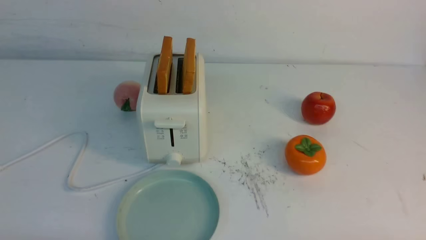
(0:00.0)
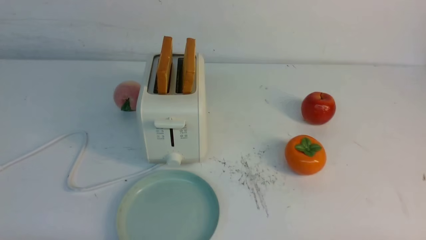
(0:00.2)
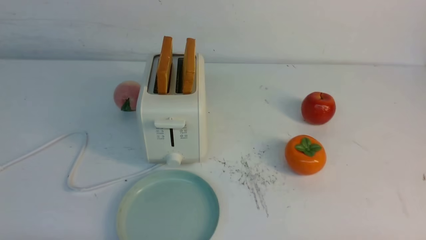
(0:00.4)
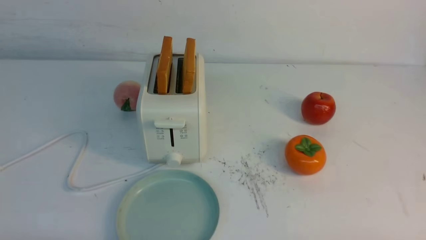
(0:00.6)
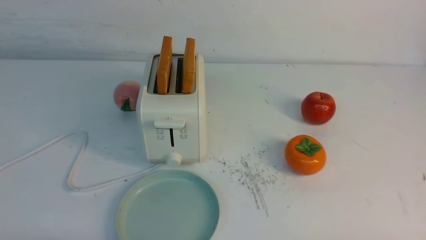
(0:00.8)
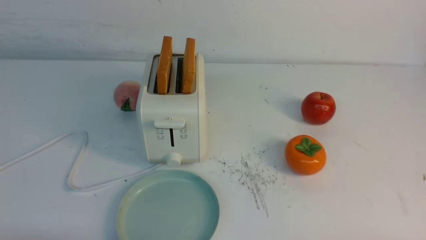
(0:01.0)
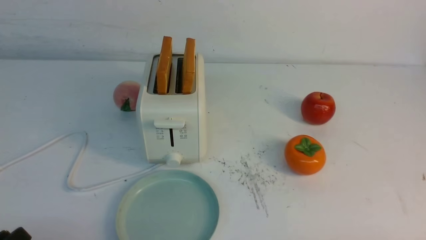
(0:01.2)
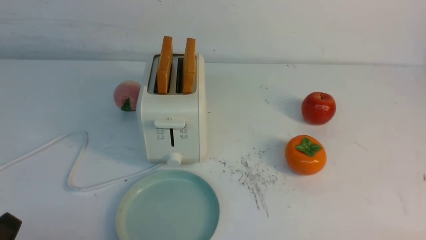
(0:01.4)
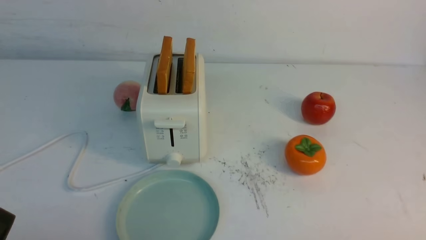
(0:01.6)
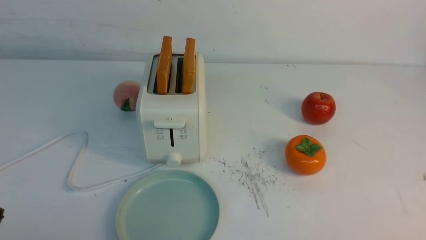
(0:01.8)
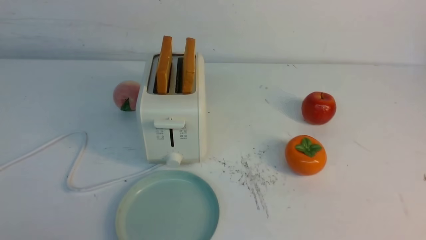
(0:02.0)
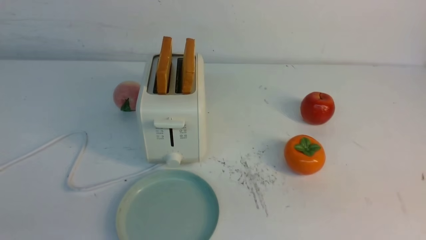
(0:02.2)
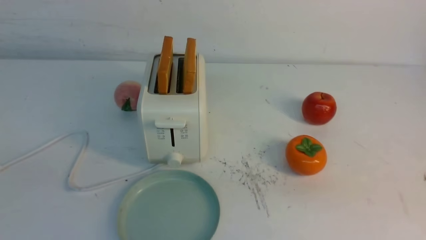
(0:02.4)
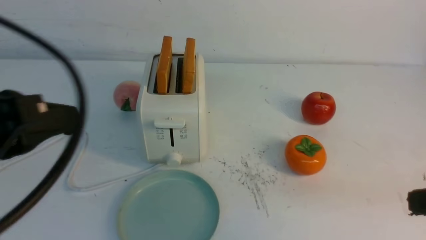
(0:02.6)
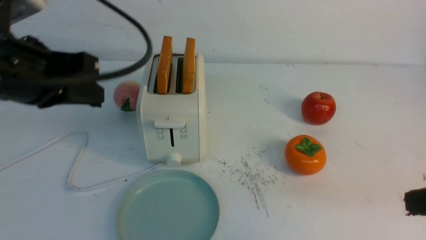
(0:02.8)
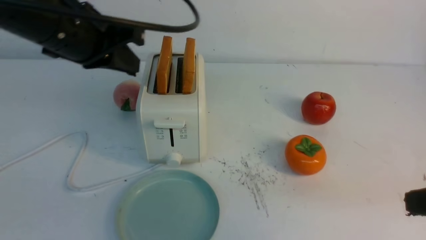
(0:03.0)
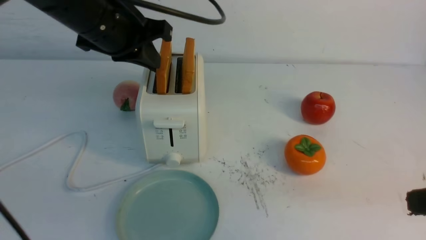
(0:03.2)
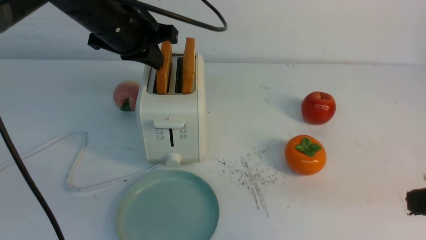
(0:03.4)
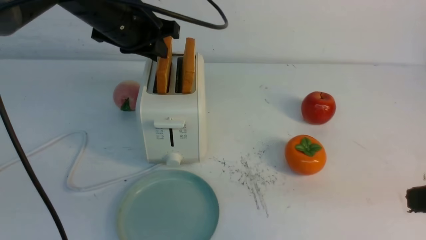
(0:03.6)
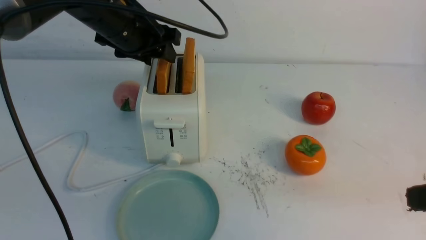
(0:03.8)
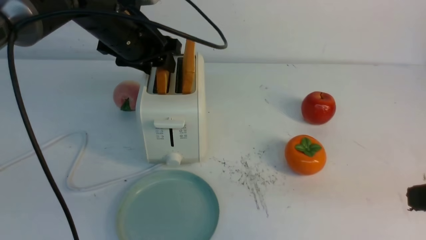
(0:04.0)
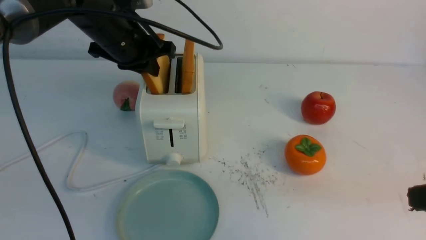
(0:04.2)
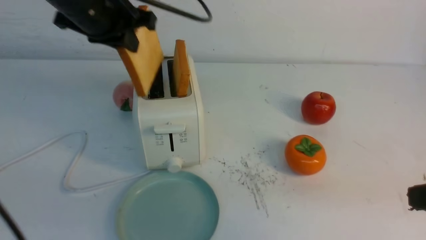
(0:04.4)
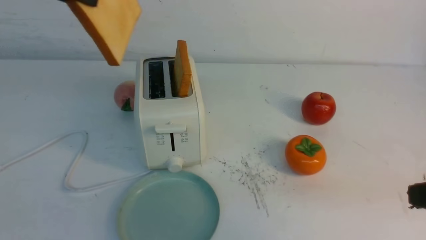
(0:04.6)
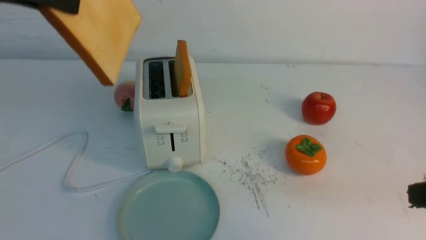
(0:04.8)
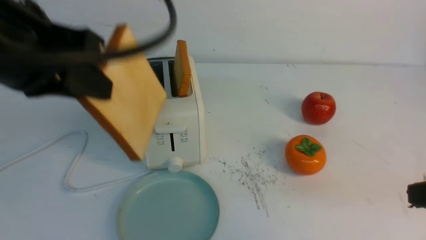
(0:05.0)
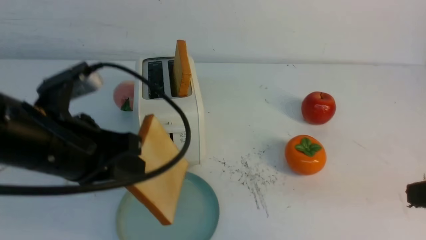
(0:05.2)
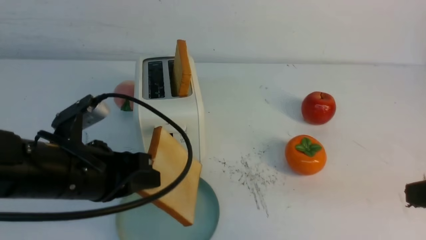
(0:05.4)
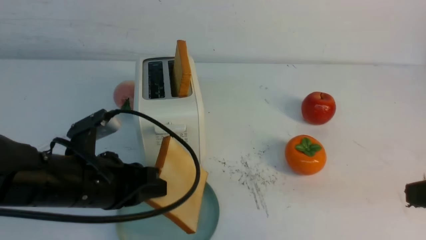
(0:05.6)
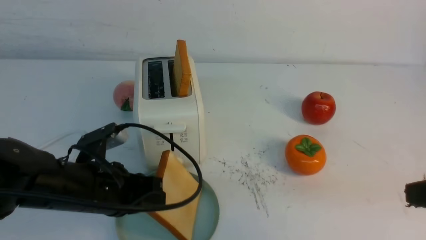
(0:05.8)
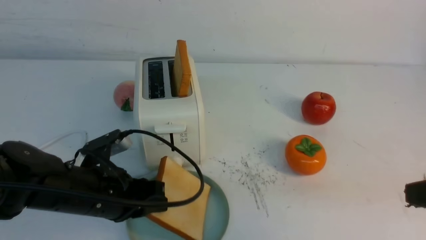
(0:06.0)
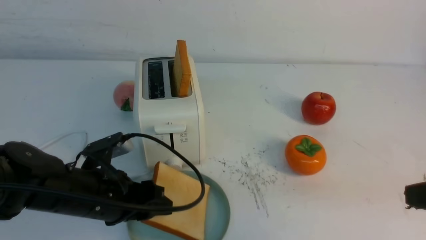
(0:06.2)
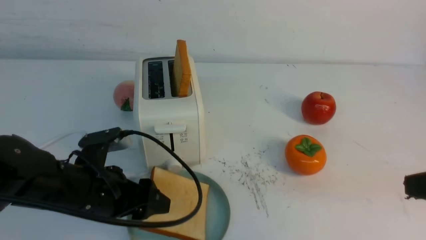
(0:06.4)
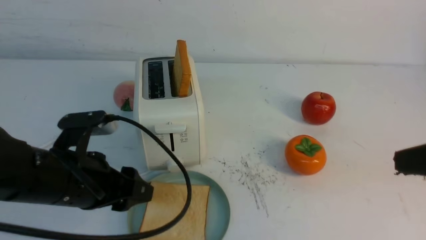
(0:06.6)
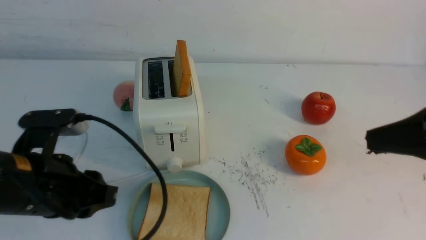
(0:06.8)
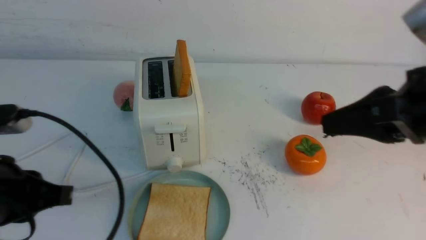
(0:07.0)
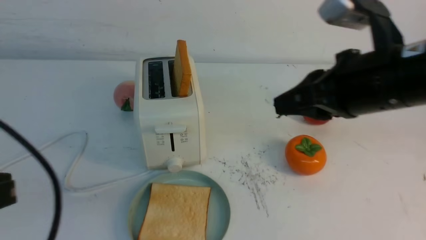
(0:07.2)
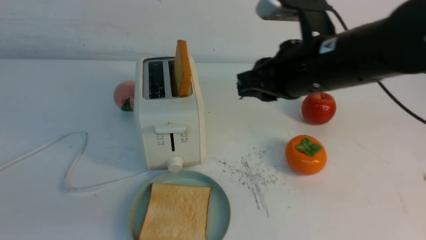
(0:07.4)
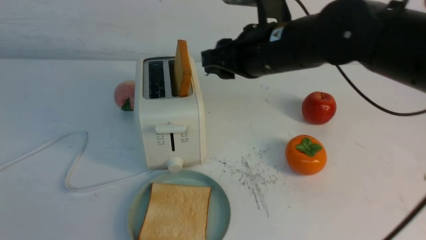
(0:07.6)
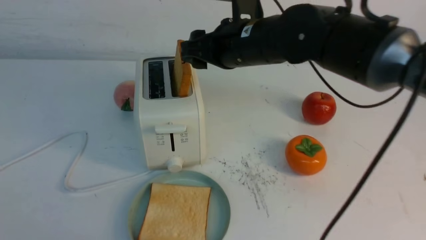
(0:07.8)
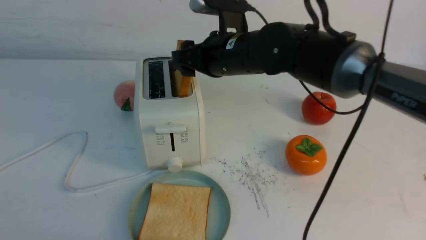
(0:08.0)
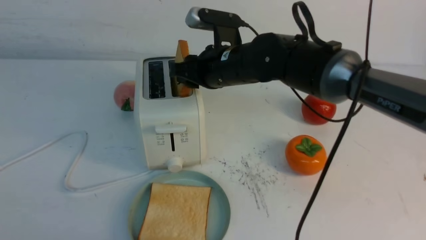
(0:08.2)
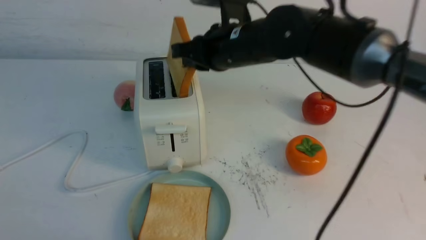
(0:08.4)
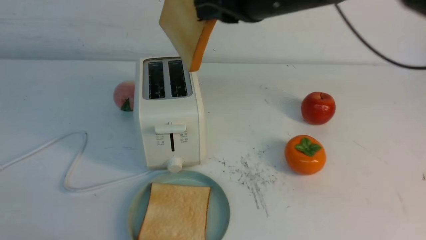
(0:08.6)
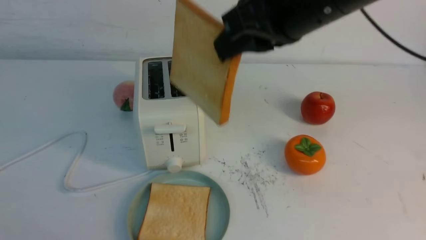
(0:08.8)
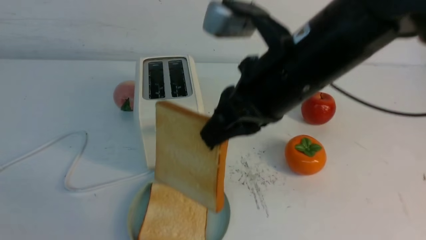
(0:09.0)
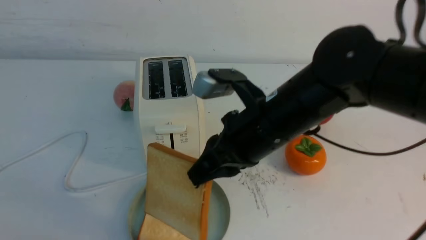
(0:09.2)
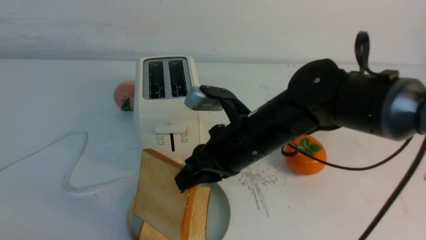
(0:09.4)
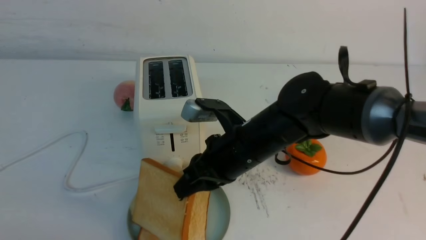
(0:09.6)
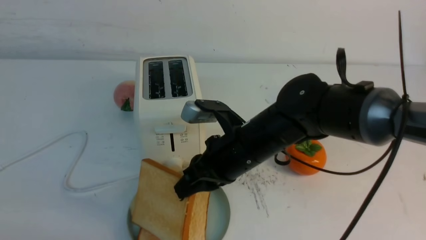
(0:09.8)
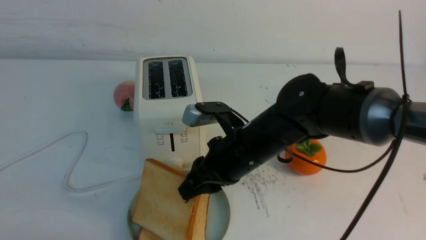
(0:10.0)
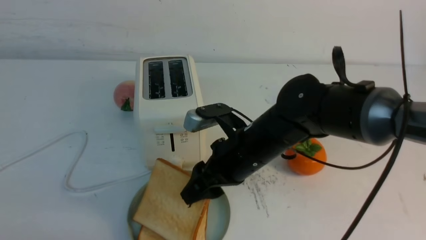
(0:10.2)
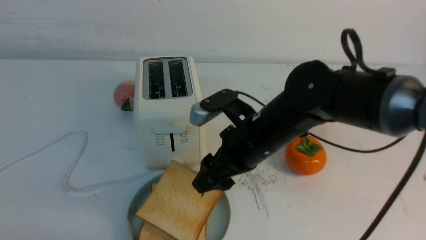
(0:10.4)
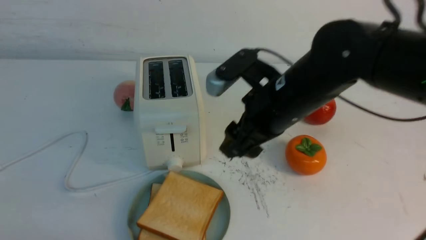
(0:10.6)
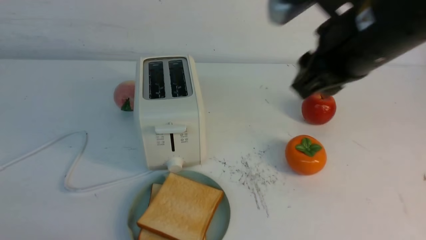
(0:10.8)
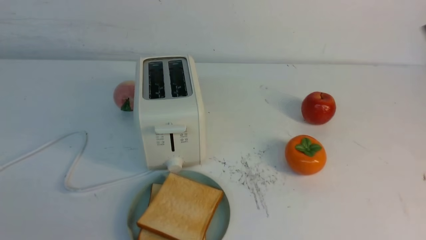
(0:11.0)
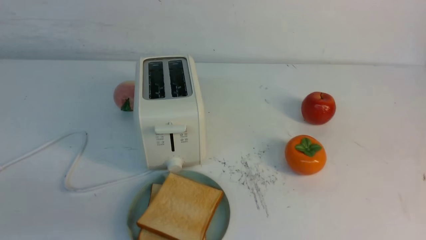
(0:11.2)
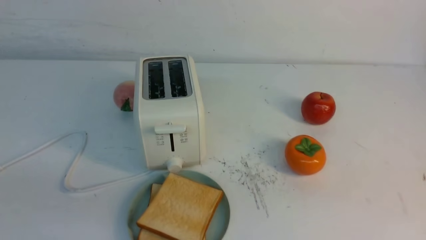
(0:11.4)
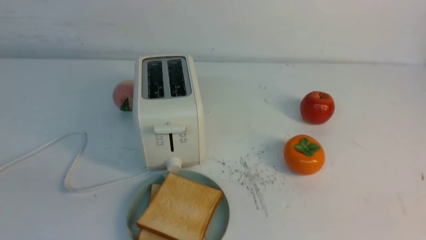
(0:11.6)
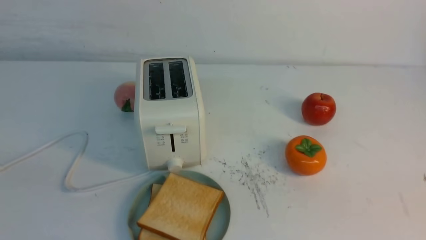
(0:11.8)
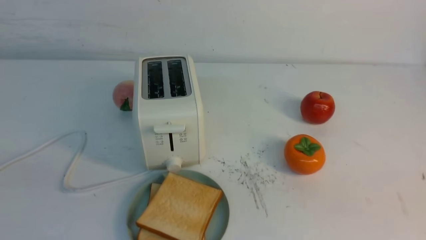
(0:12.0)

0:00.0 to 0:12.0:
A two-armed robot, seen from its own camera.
Task of the whole recording: take toasted bread from bread machine on white table place on plate.
Step, 0:00.0 to 0:04.2: use the left arm to take out a slice of bread.
Step, 0:04.6 to 0:06.6: use the left arm to put a slice of bread into the empty plate.
Step, 0:06.8 to 0:08.4: use the right arm to take out a slice of bread.
Step, 0:08.6 to 0:10.4: use the right arm to put a slice of bread into the plate.
0:01.6 to 0:03.0: The right gripper travels upward and forward by some 15 cm, and closes its fingers, while the left gripper goes approximately 30 cm forward and upward, and closes up.
0:03.0 to 0:04.4: The left gripper moves roughly 10 cm forward and comes back, and opens, then closes again.
0:04.4 to 0:06.0: The left gripper goes about 25 cm downward and backward, and opens up.
0:06.0 to 0:07.6: The left gripper heads backward, upward and to the left, covering approximately 25 cm, and closes up; the right gripper is displaced forward and to the left by some 30 cm, and opens.
0:07.6 to 0:09.0: The right gripper heads backward, covering roughly 10 cm, and closes its fingers.
0:09.0 to 0:10.4: The right gripper heads downward, covering some 10 cm, and opens.
0:10.4 to 0:12.0: The left gripper heads upward, covering some 5 cm, while the right gripper moves backward and to the right, roughly 35 cm, and closes up.

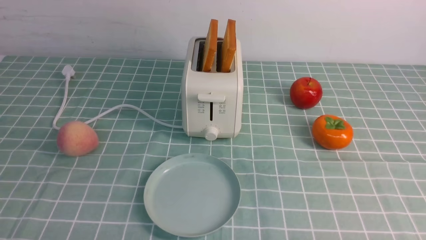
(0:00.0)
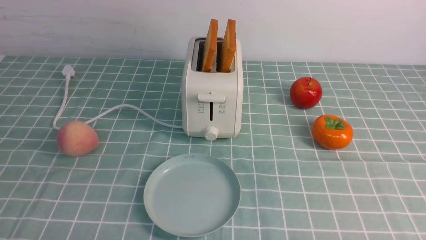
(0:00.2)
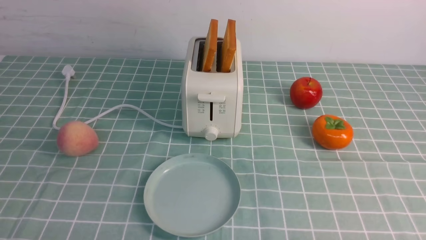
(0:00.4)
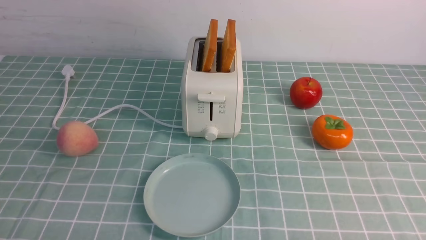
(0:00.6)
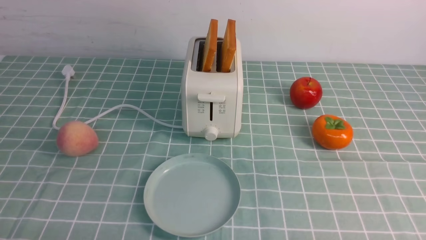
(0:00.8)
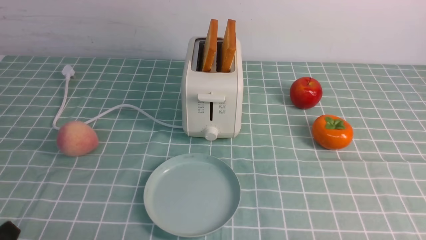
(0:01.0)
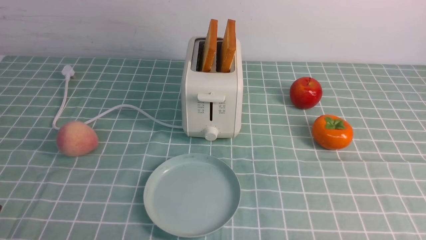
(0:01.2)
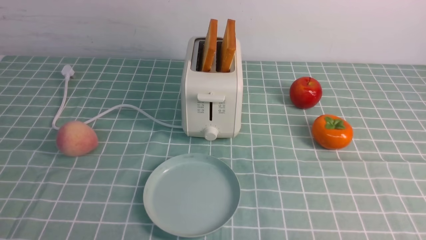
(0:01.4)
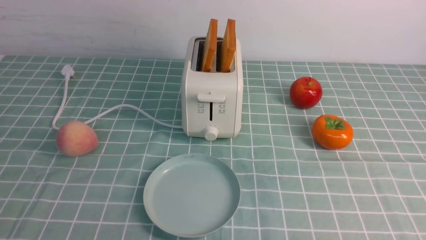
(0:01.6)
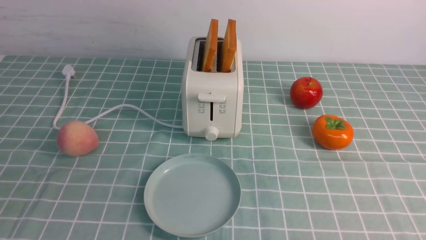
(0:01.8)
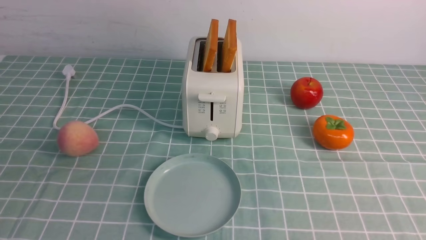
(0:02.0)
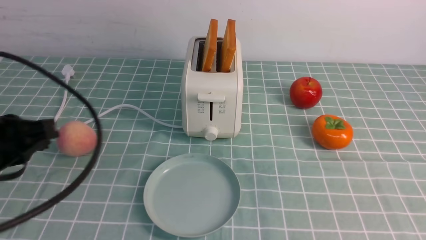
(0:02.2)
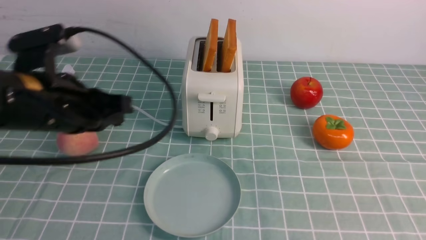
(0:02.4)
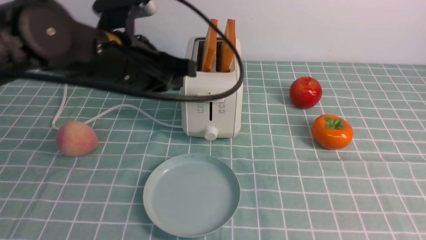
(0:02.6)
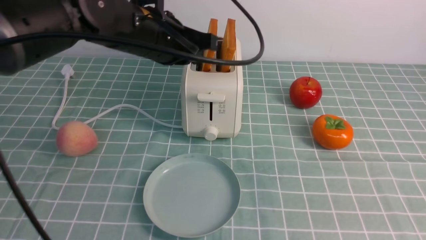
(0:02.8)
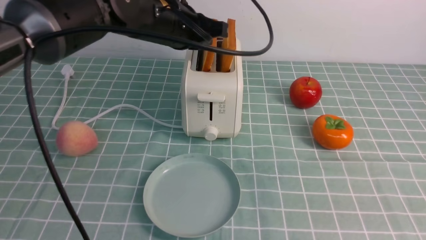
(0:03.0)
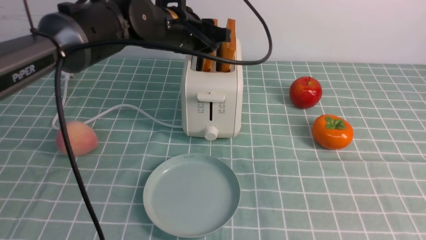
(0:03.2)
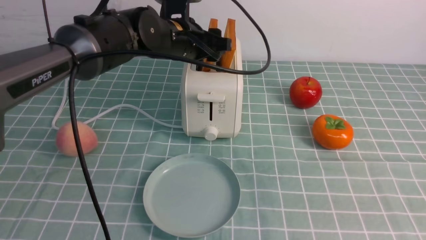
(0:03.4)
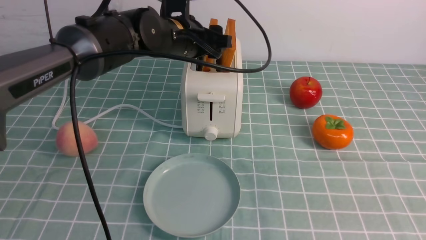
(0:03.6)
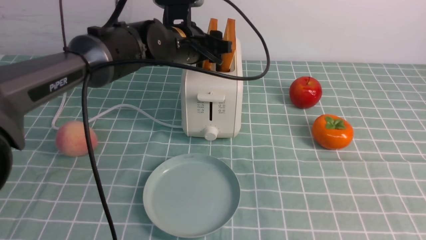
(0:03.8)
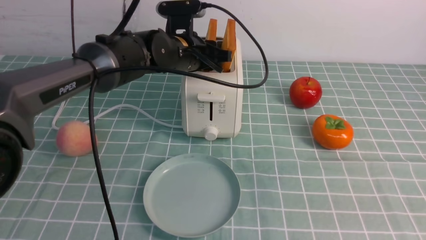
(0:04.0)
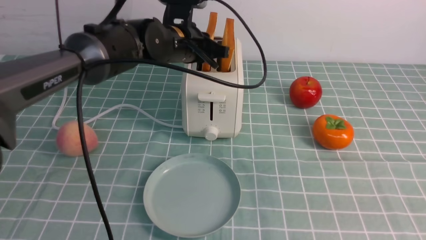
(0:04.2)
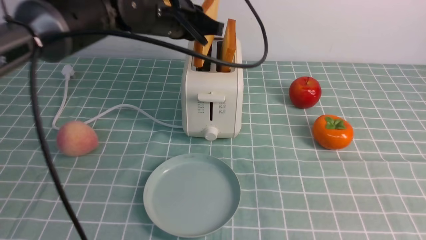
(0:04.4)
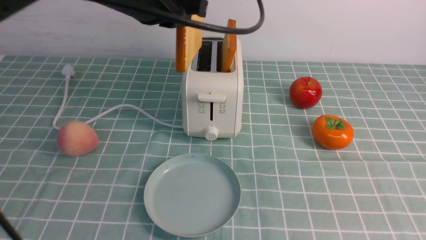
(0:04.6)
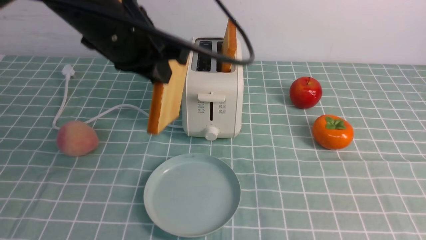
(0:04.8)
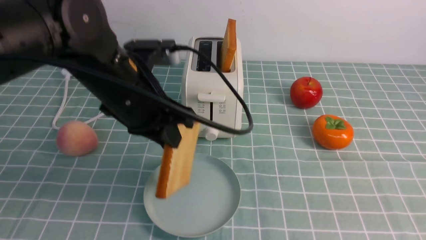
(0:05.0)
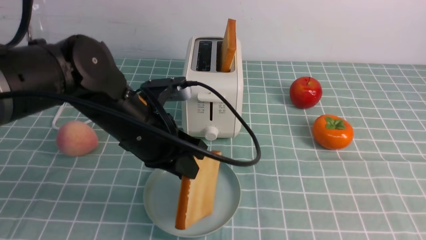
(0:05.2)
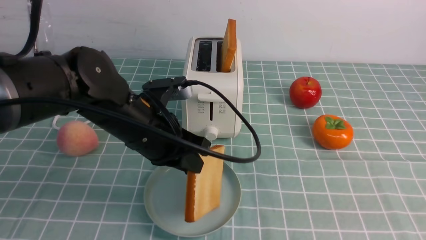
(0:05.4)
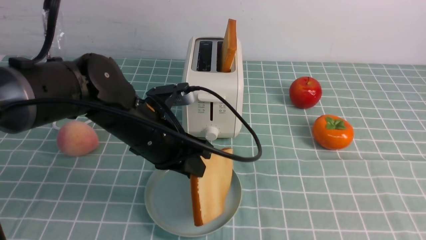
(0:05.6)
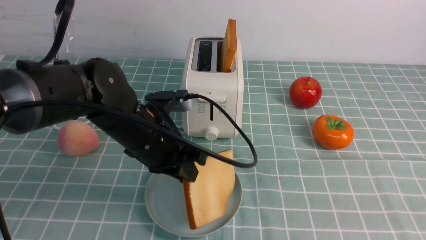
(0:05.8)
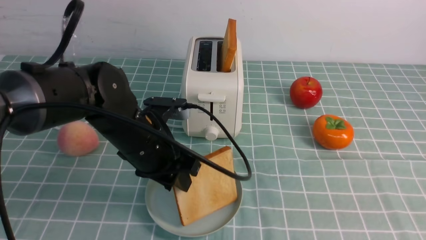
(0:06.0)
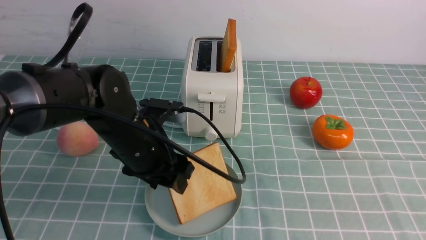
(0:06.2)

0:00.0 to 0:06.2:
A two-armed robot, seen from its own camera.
Task of the whole recording: take toasted bread from bread machine on blue coffee table place on plate.
Step, 0:00.0 to 0:04.6: use the left arm to take out a slice of bread.
0:01.6 to 0:03.2: The left gripper is displaced forward and to the right by about 40 cm, and opens up, while the right gripper shifts some 10 cm upward, and closes.
0:03.2 to 0:04.6: The left gripper goes approximately 5 cm upward, and opens, then closes again.
0:04.6 to 0:06.2: The left gripper heads downward and backward, covering approximately 15 cm, and opens up.
